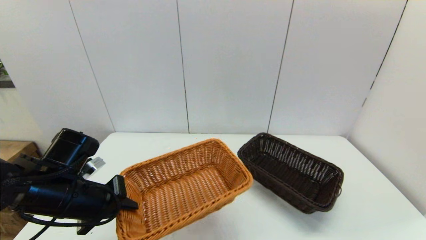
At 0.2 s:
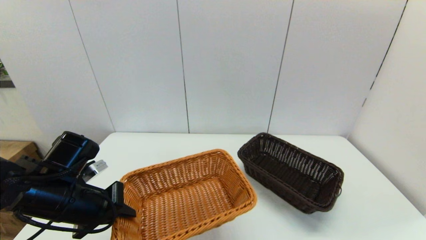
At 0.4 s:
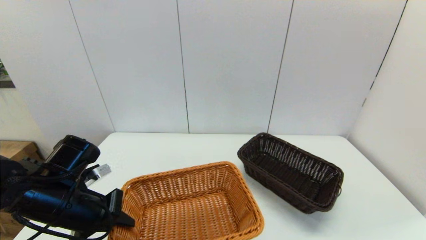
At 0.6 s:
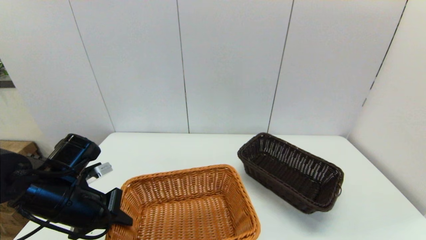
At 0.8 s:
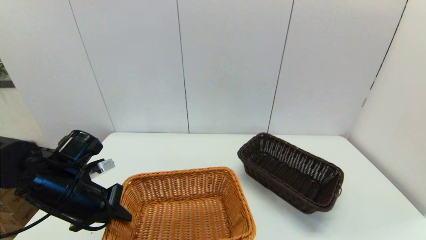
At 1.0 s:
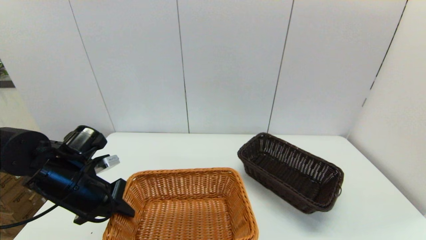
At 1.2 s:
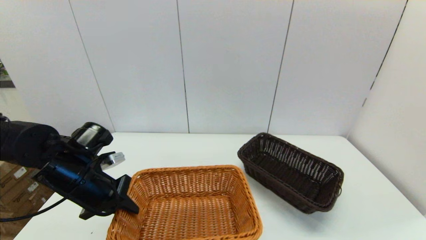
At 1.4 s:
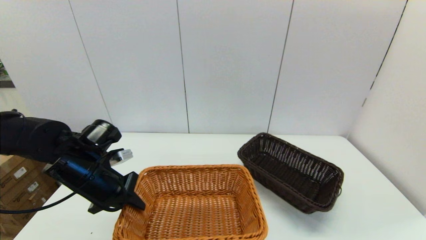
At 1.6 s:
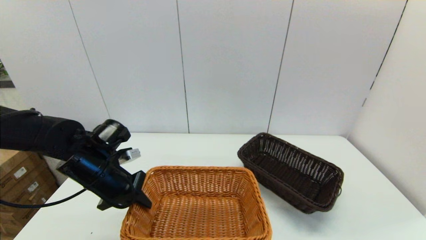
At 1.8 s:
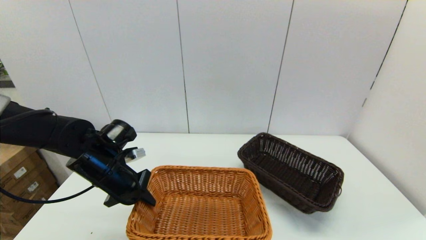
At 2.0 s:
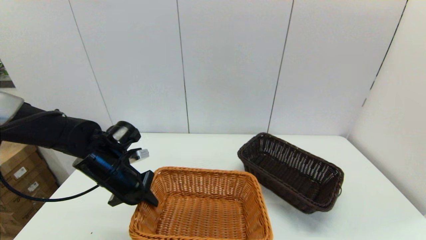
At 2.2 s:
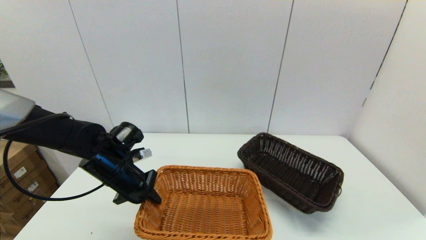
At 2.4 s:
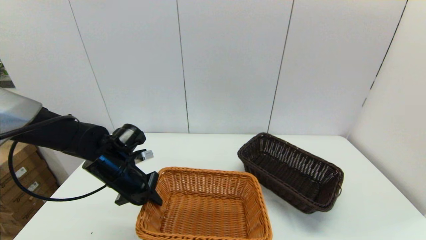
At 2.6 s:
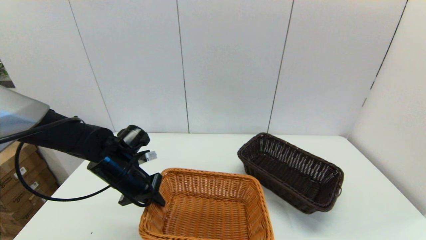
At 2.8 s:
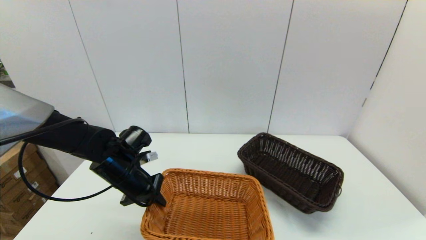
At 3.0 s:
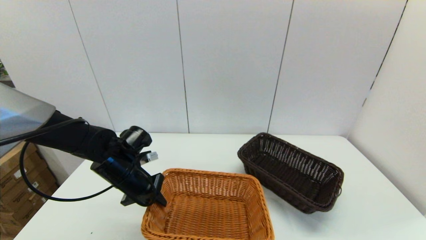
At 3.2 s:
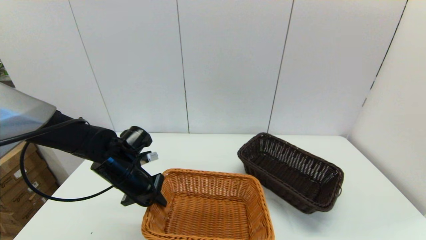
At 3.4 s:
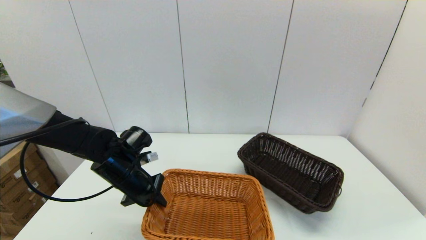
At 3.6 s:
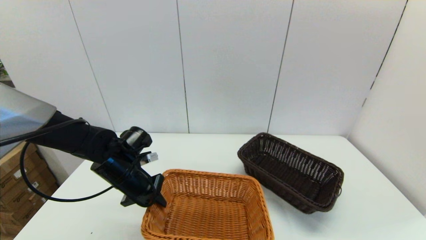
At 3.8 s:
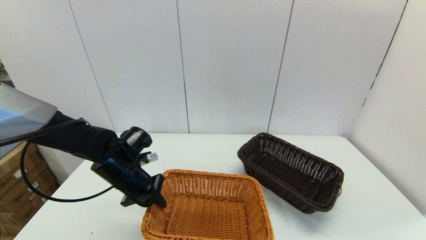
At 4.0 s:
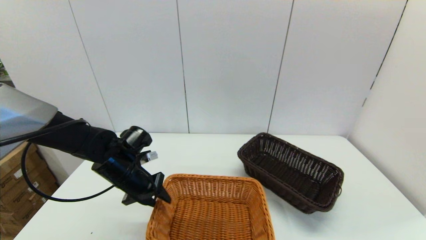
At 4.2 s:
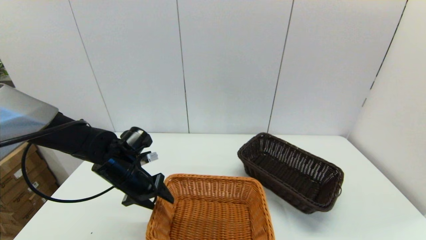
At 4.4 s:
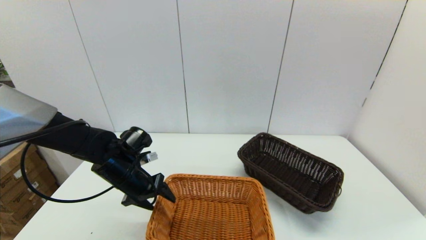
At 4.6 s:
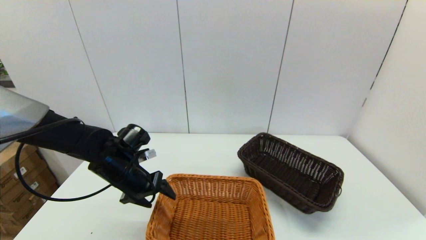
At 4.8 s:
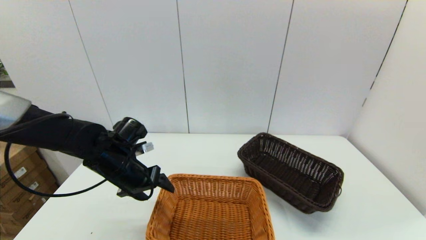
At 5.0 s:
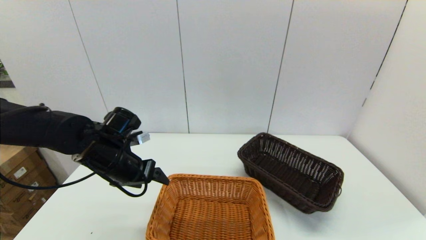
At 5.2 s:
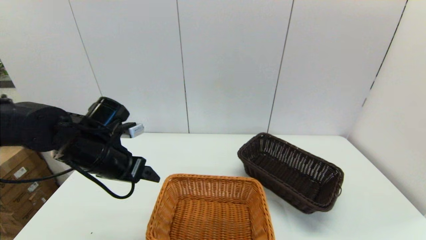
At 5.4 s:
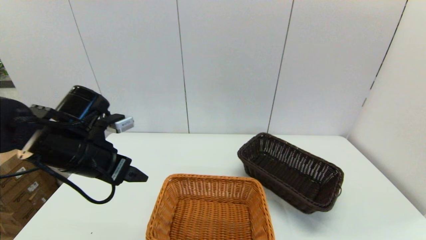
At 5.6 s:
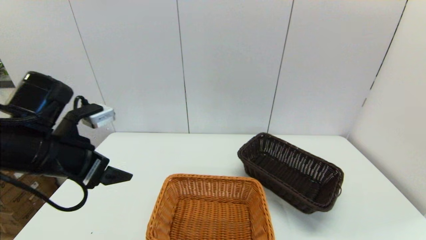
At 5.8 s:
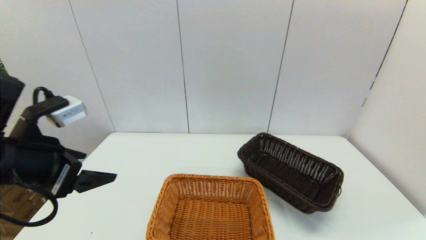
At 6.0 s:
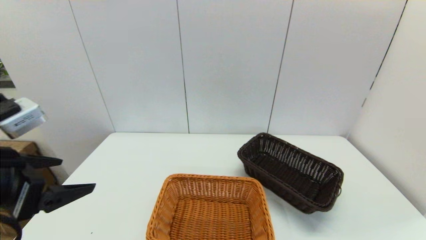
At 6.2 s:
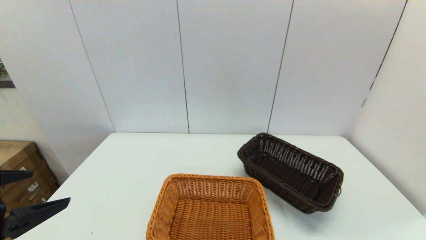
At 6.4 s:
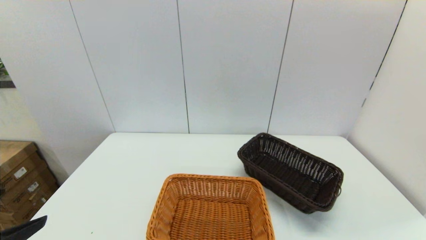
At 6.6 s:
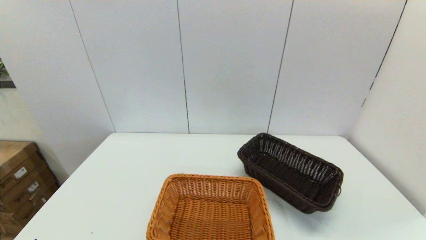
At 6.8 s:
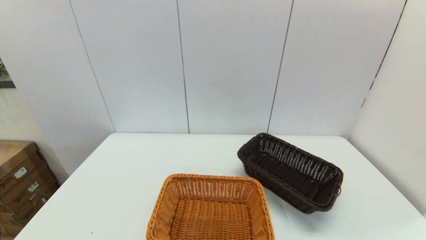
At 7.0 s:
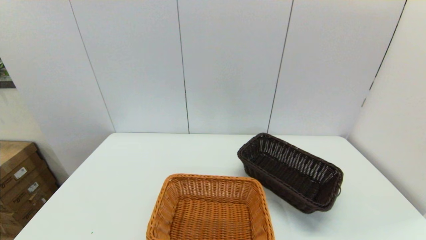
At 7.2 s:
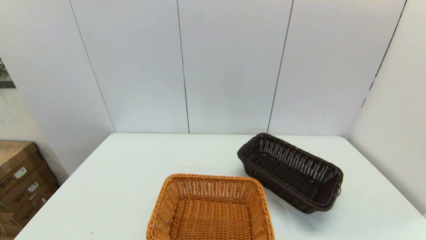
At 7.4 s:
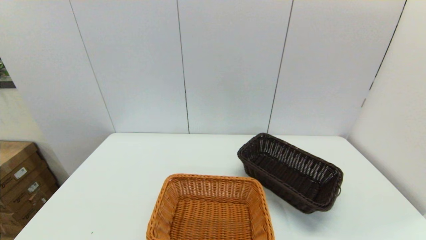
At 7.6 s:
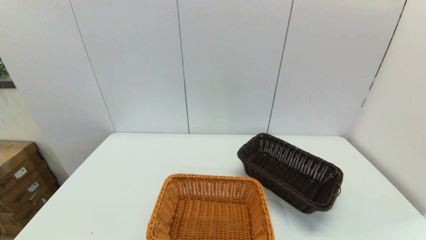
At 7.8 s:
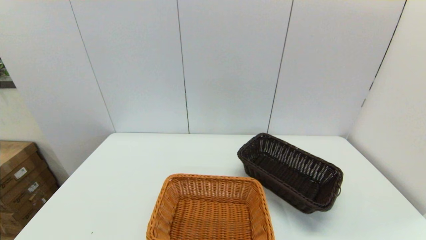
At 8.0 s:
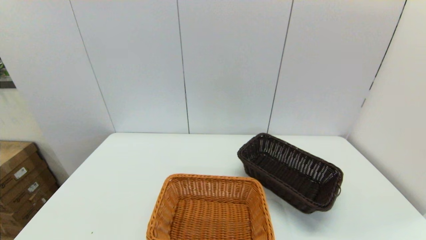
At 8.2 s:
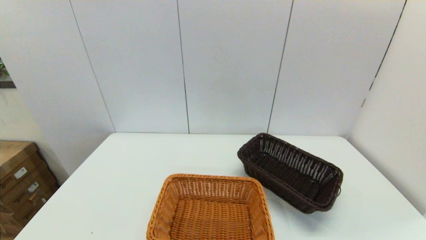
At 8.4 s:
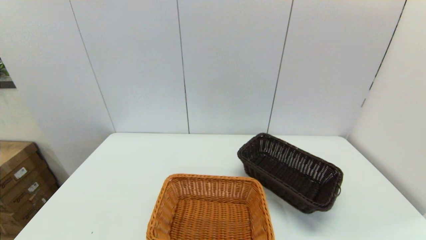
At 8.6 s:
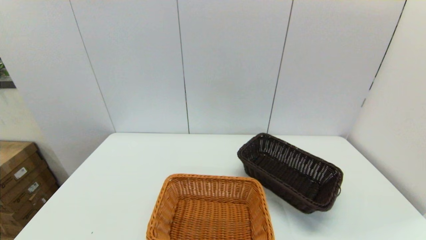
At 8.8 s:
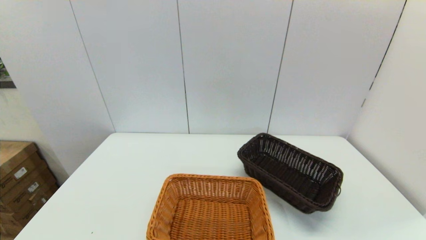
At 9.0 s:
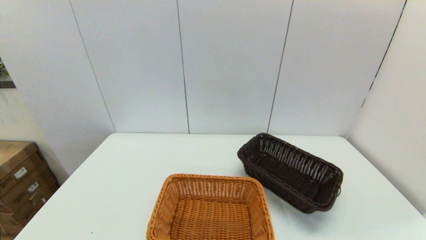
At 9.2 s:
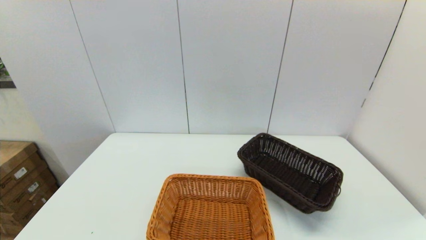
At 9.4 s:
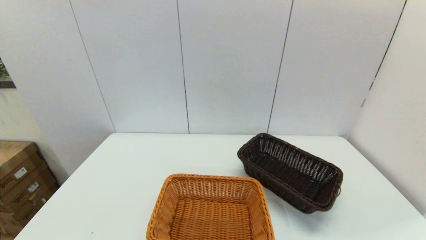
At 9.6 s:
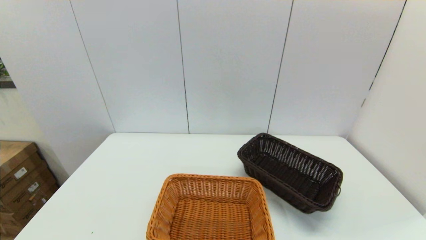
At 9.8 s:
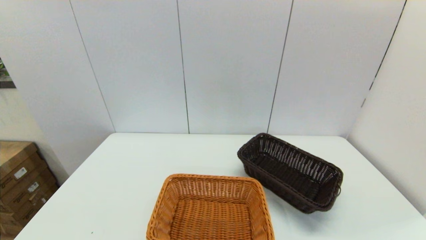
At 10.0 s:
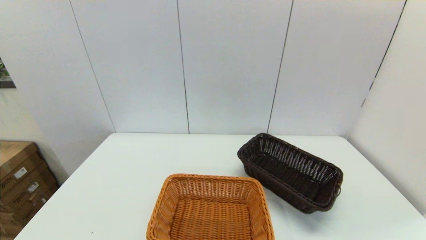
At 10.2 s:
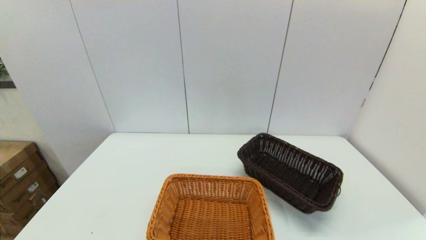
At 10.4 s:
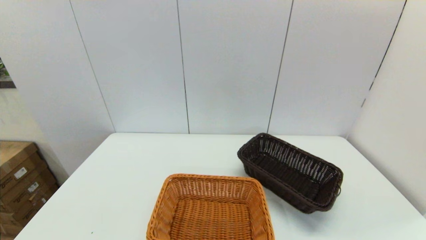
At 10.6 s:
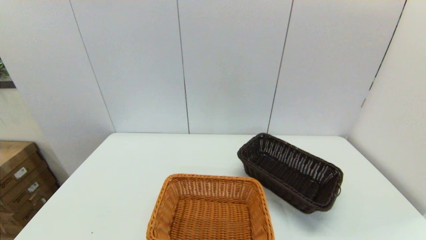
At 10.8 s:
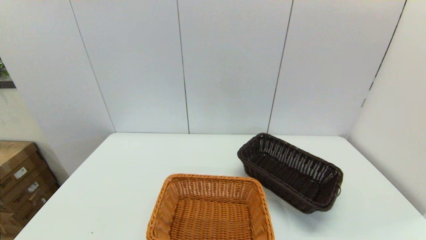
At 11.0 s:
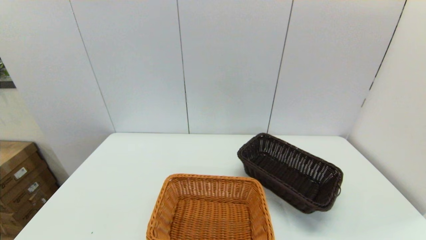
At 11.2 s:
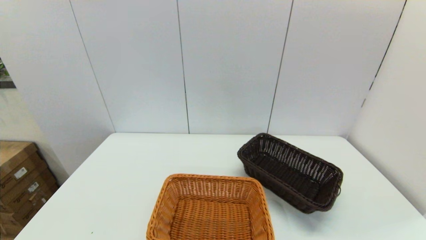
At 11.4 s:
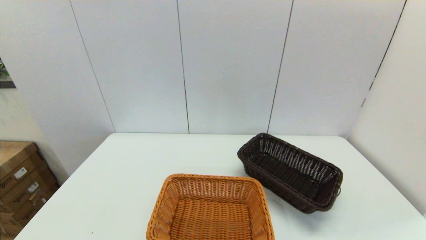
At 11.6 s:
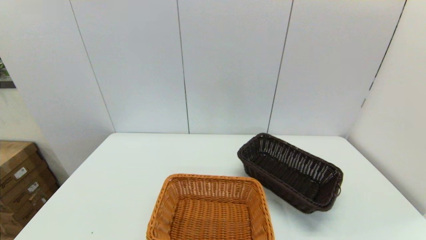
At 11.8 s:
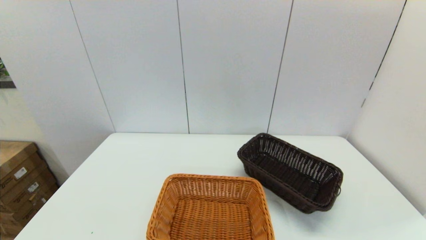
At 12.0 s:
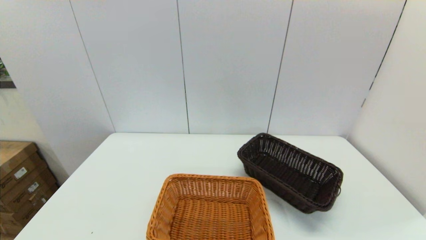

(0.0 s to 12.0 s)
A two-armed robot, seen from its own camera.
Task of the whole recording: stack a basket on top of another basket.
Step, 0.0 s - 5.0 s: Place the light basket on the middle of the table with the left gripper.
0.0 s - 1.6 s: The left gripper travels forward by roughly 5 cm.
1.6 s - 3.0 s: The left gripper moves roughly 5 cm.
3.0 s - 4.4 s: The left gripper opens its fingers.
4.4 s - 6.0 s: The left gripper moves upward, backward and to the left, approximately 25 cm.
6.0 s - 7.6 s: The left gripper is displaced backward and downward by roughly 20 cm.

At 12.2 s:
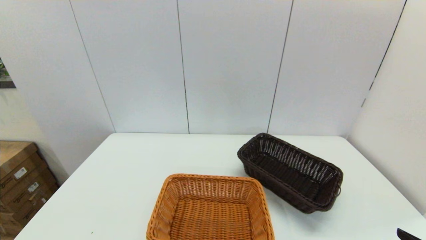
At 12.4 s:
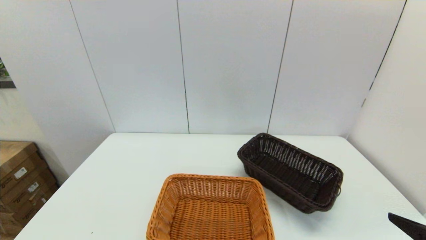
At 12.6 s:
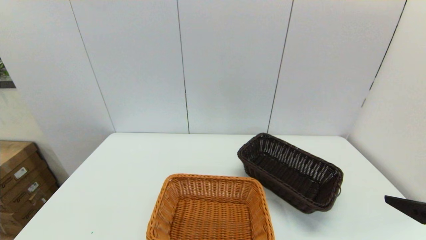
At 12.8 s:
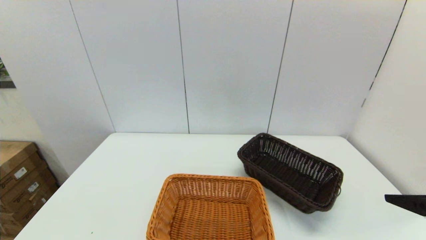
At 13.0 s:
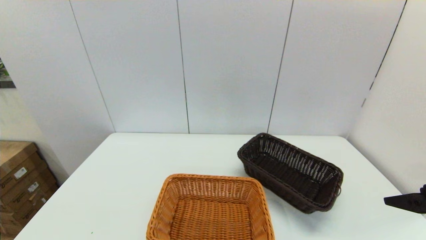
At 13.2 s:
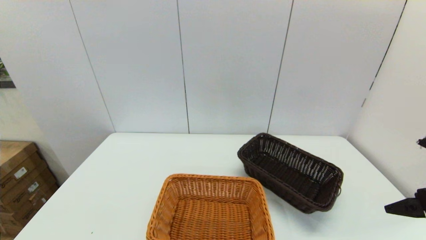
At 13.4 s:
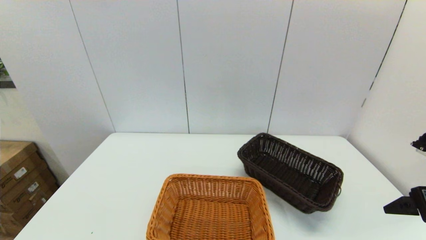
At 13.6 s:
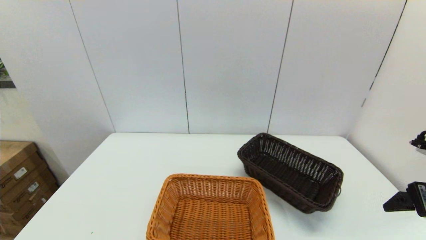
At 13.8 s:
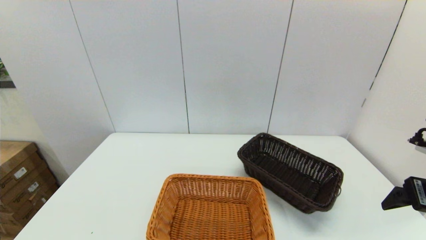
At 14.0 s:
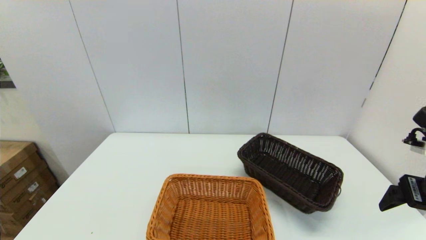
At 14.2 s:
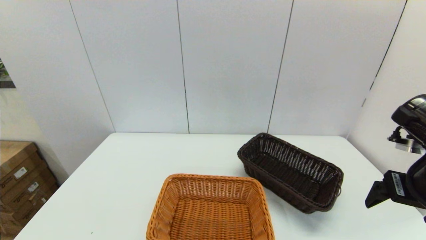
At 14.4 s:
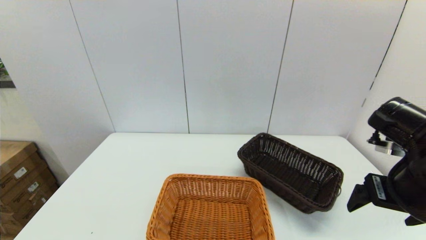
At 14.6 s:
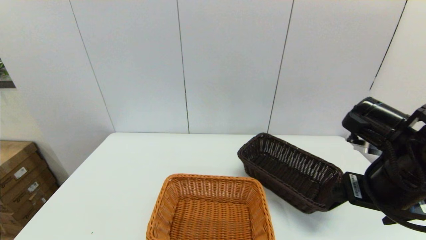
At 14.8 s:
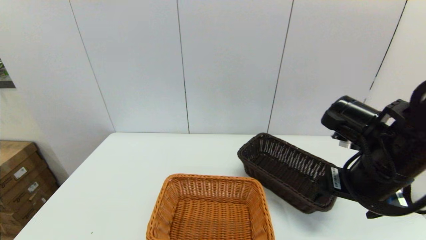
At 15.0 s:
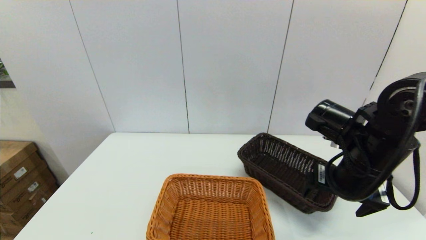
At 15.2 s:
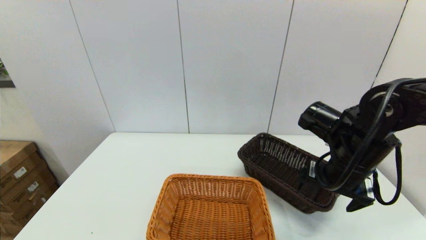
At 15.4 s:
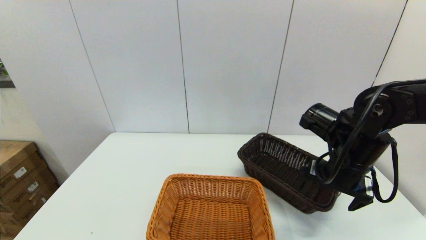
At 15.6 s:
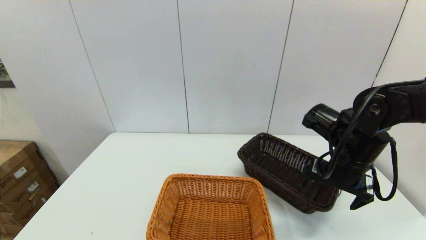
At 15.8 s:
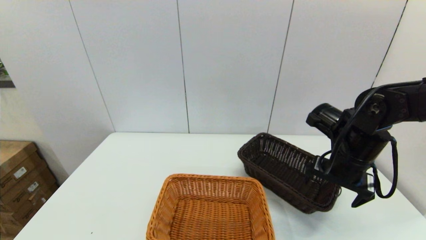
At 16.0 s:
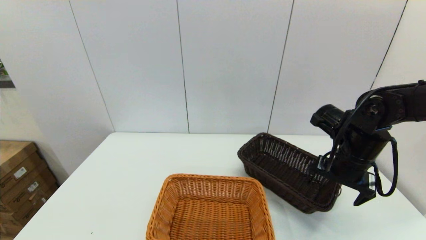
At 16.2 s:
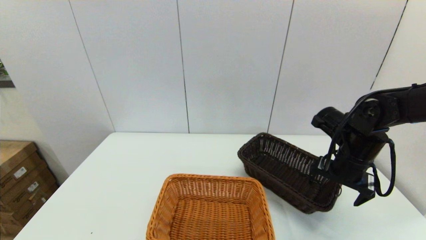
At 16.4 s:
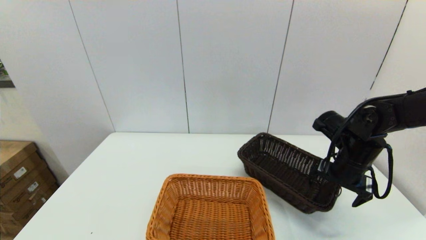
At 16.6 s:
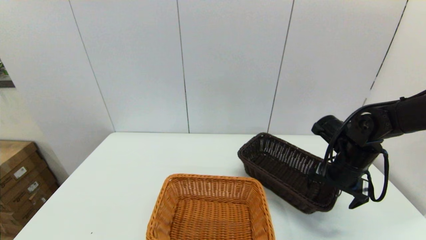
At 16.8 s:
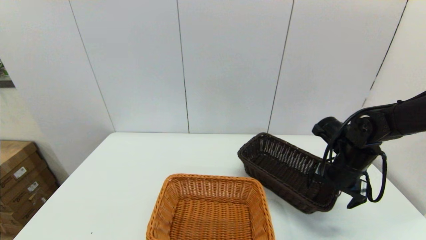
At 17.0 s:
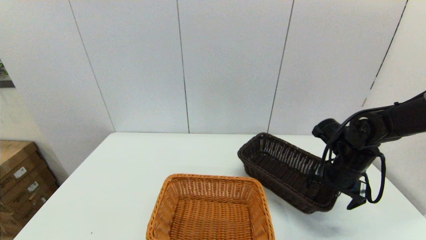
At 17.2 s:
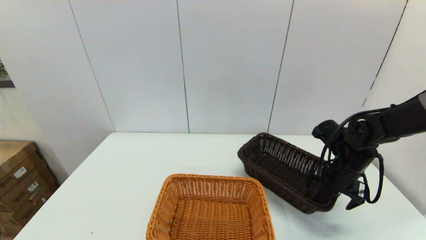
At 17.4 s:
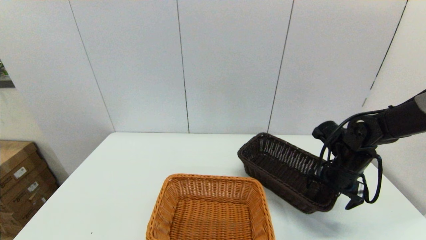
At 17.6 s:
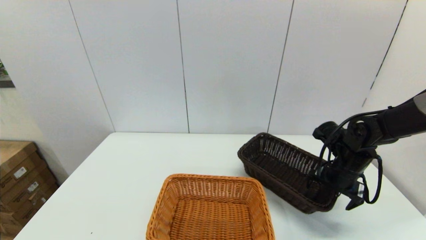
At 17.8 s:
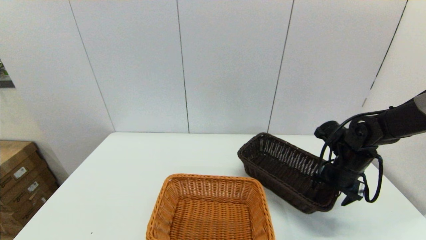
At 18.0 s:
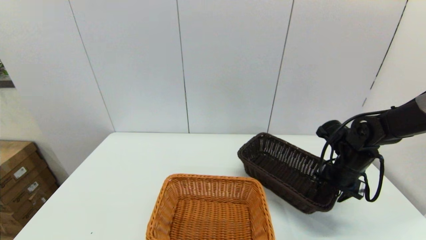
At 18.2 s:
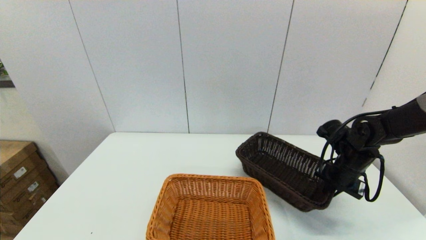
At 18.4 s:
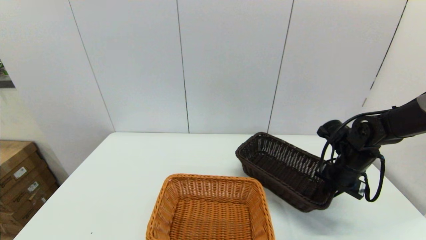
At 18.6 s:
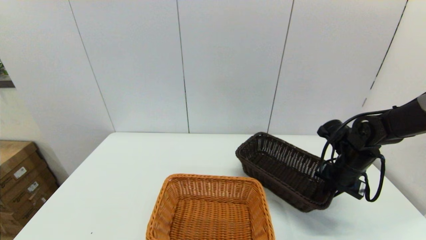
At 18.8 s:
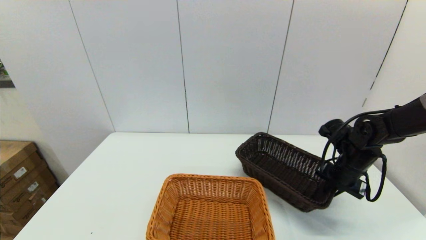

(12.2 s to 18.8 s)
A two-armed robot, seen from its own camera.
Task of the whole recording: stack a basket on top of another basket.
Step, 12.2 s - 18.4 s: Grasp the dark basket with the right gripper.
12.2 s - 13.8 s: The right gripper shifts about 15 cm forward and upward.
13.8 s - 15.4 s: The right gripper heads to the left and forward, covering some 15 cm.
15.4 s - 17.2 s: The right gripper moves downward, to the right and forward, roughly 10 cm.
17.2 s - 18.8 s: The right gripper closes.
